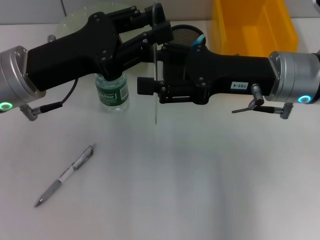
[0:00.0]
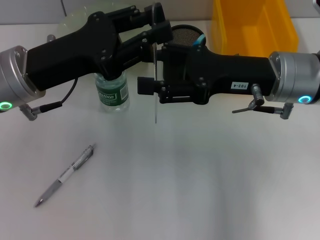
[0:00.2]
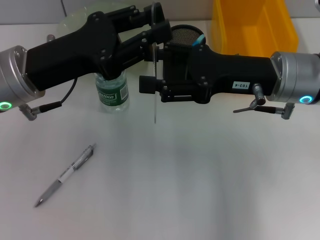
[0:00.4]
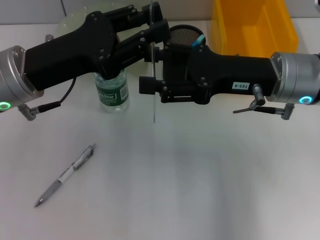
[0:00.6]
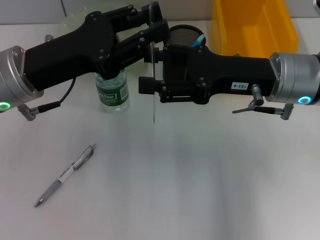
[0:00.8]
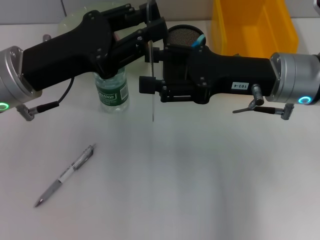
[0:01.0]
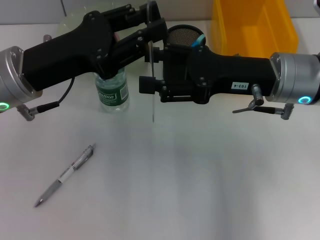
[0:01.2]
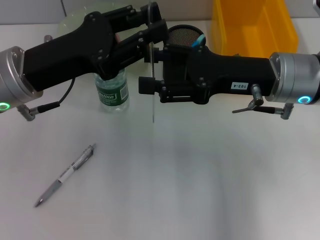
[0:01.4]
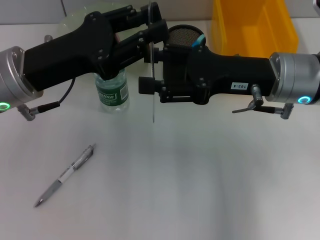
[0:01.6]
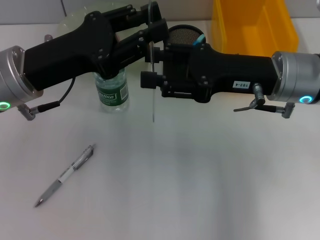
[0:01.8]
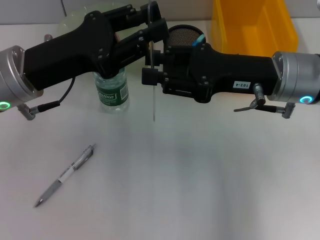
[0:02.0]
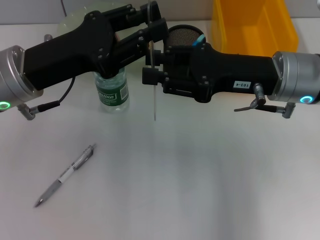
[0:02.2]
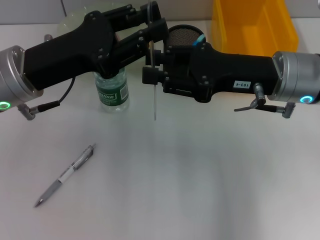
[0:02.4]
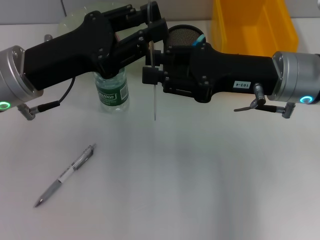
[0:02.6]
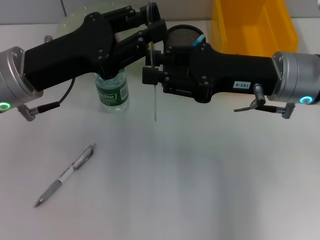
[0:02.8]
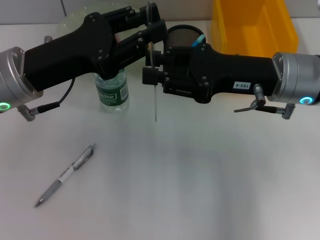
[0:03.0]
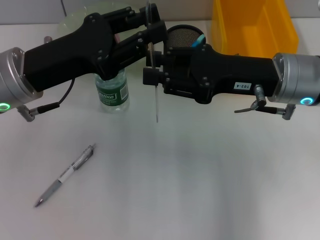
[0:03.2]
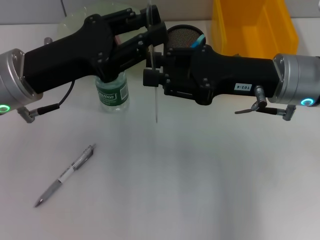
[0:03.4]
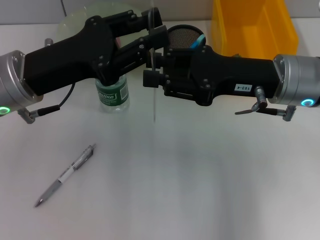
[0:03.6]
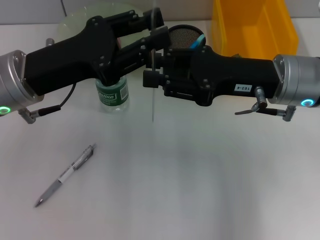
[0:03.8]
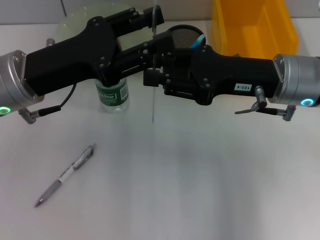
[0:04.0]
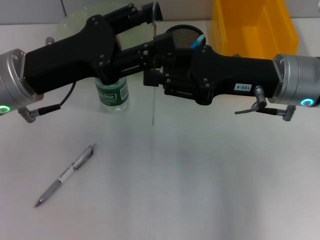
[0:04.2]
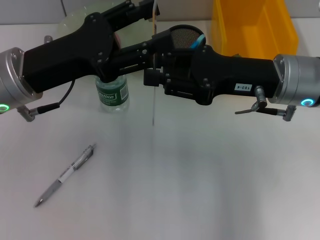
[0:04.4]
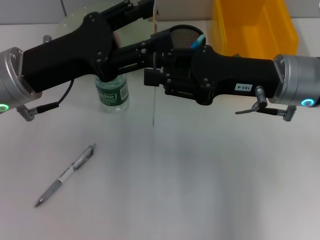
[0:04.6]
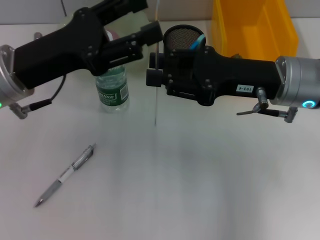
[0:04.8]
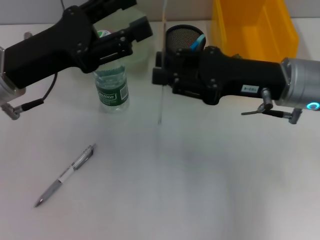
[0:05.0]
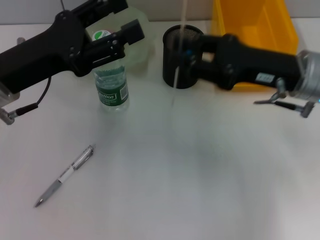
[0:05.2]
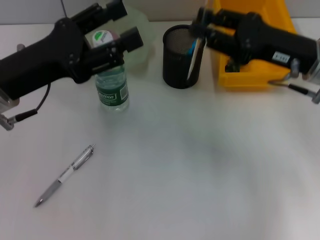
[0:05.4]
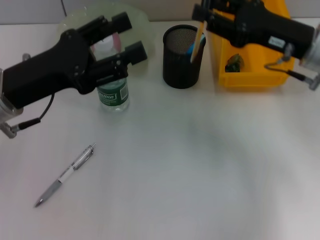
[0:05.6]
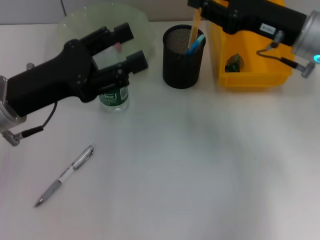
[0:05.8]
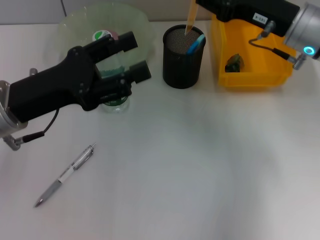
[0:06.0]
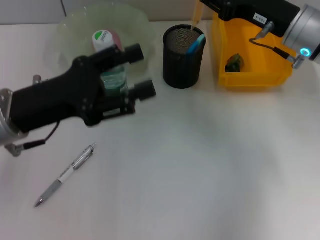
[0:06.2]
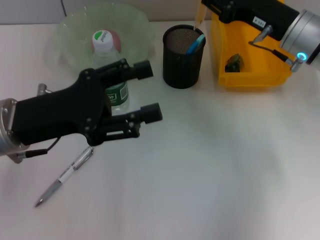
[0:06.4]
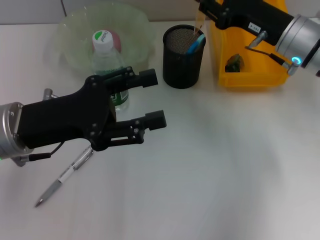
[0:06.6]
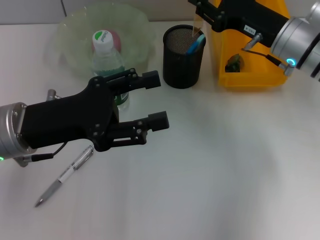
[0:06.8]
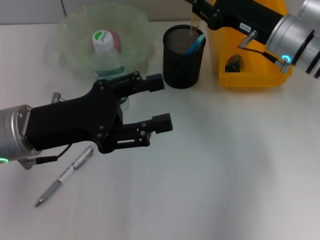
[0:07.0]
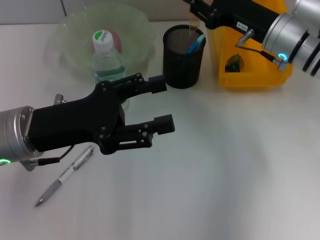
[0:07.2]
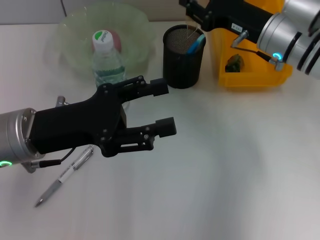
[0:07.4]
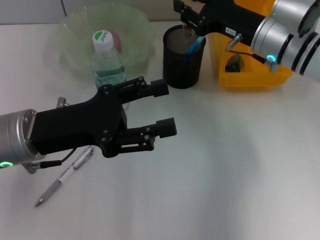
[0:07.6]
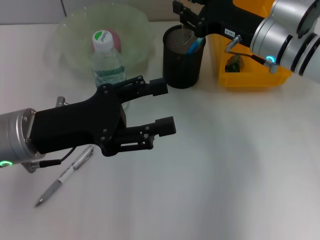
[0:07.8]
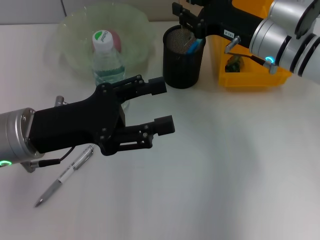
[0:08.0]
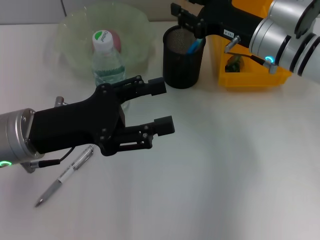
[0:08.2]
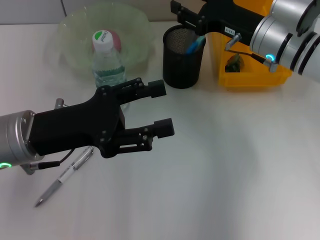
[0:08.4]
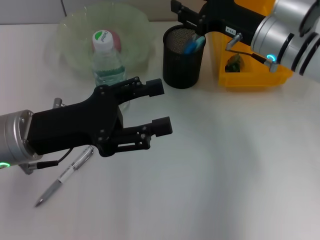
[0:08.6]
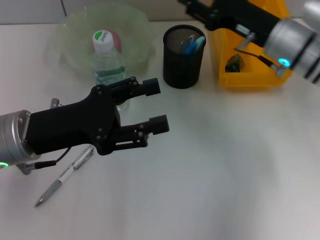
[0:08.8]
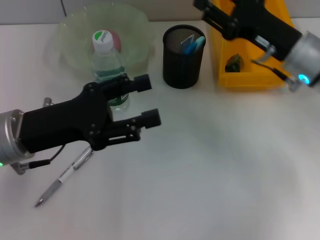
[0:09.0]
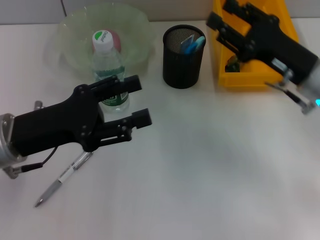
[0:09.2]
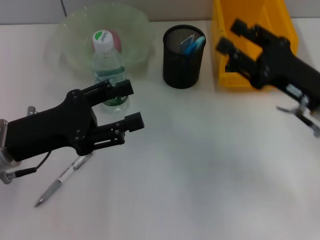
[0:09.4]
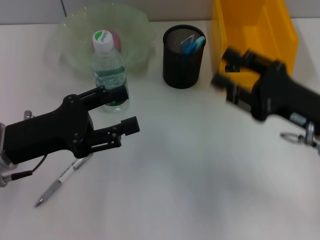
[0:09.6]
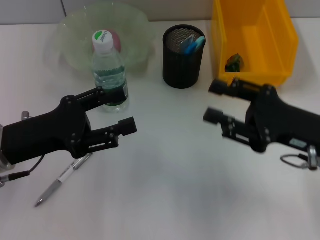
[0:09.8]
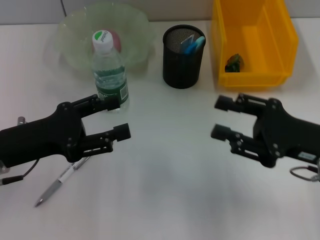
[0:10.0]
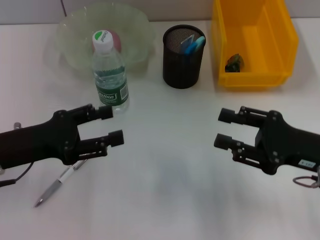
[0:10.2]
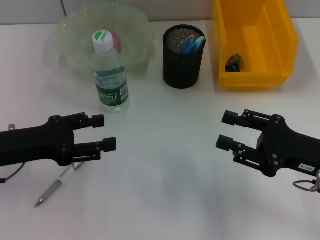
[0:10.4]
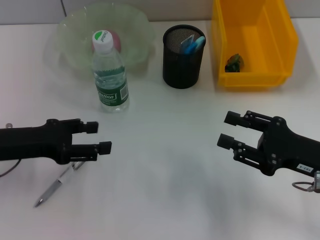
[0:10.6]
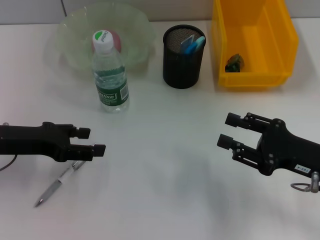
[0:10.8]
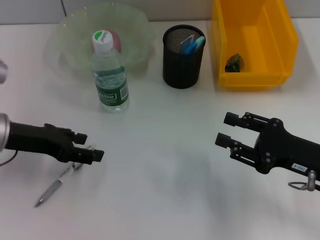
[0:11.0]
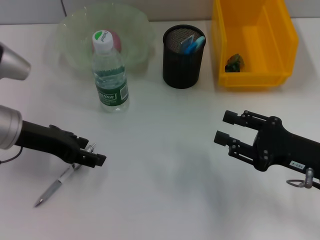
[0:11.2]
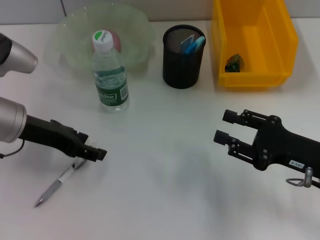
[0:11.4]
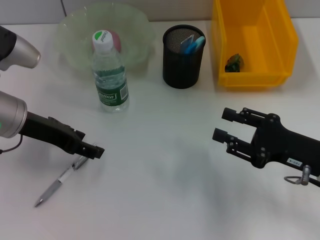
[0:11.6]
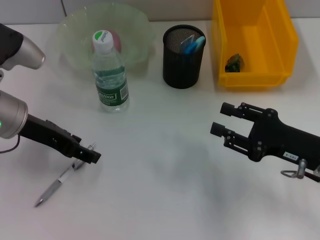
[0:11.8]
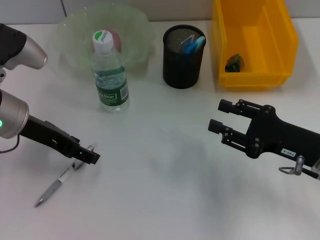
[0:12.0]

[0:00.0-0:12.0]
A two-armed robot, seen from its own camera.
Step, 0:00.0 to 0:04.0: Pass the ruler from the left hand to the right hand.
Step, 0:04.4 to 0:08.4: Place the ruler into the pen holder with the right hand.
0:00.0 to 0:01.6: The two grippers keep their place.
0:01.6 to 0:03.0: The right gripper closes its fingers.
0:03.0 to 0:04.4: The left gripper opens its fingers.
0:04.4 to 0:06.0: The right gripper moves forward, approximately 5 cm.
0:06.0 to 0:07.6: The right gripper shifts by about 5 cm.
0:07.6 to 0:09.0: The right gripper moves roughly 5 cm.
0:09.0 to 0:10.4: The right gripper moves backward, approximately 10 cm. Meanwhile the left gripper travels to the left by some 5 cm.
0:10.4 to 0:12.0: The left gripper shifts approximately 5 cm forward.

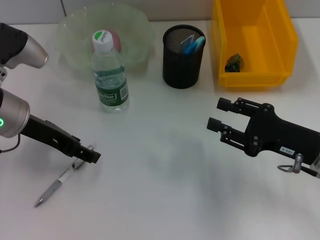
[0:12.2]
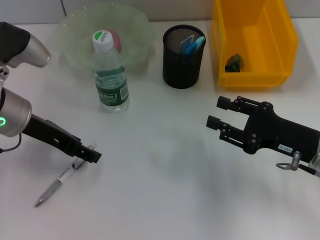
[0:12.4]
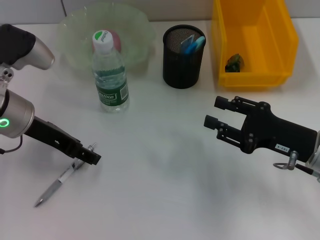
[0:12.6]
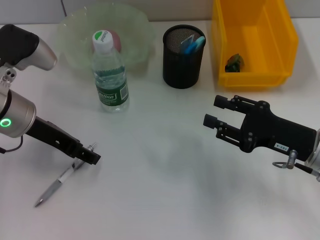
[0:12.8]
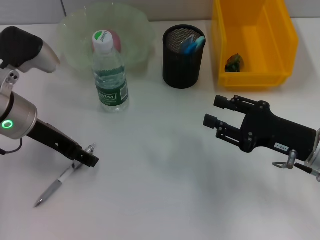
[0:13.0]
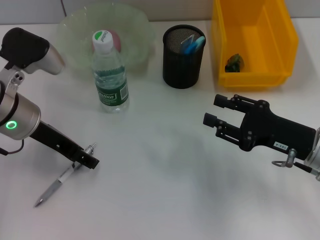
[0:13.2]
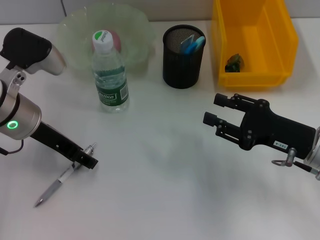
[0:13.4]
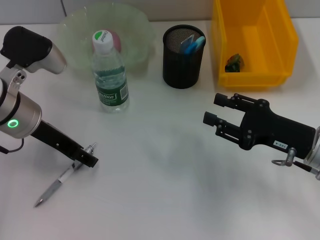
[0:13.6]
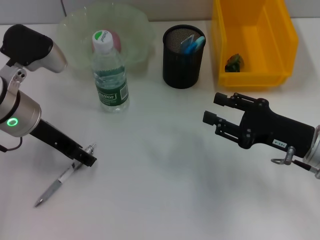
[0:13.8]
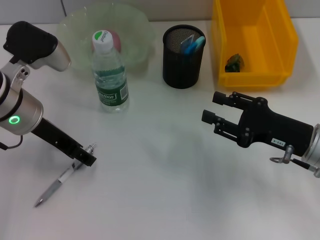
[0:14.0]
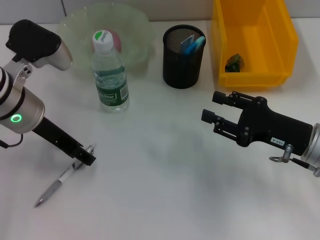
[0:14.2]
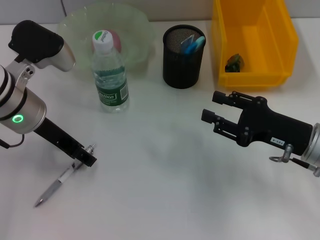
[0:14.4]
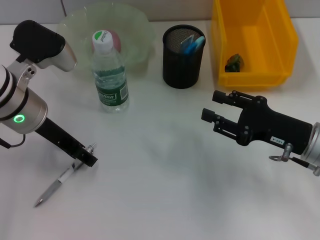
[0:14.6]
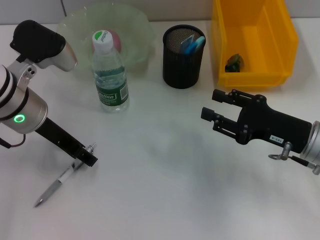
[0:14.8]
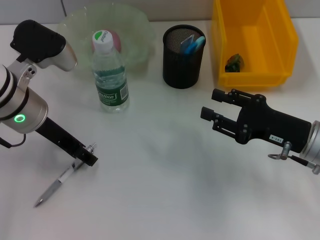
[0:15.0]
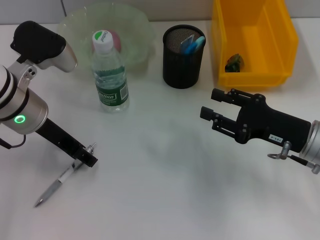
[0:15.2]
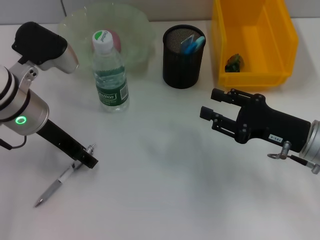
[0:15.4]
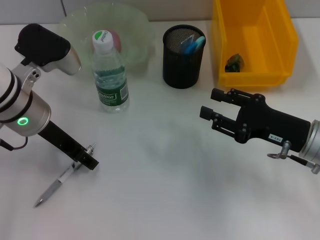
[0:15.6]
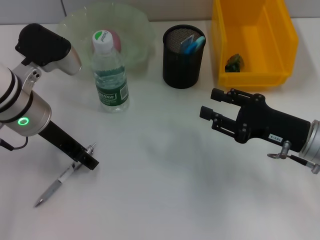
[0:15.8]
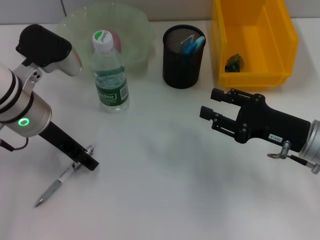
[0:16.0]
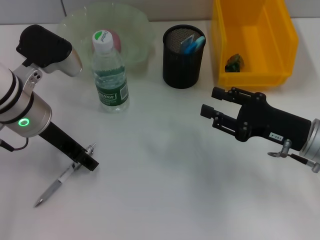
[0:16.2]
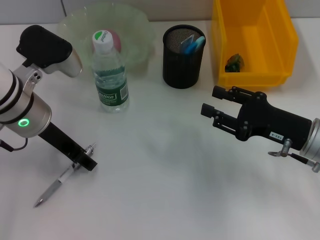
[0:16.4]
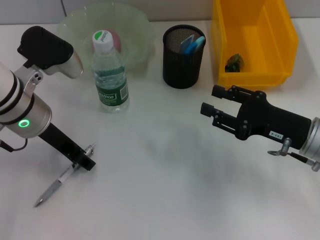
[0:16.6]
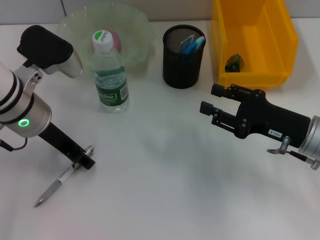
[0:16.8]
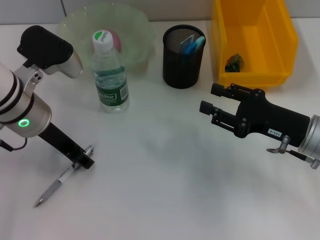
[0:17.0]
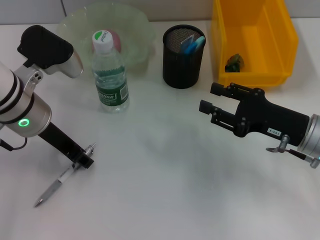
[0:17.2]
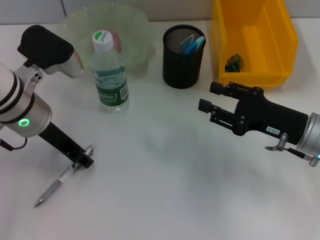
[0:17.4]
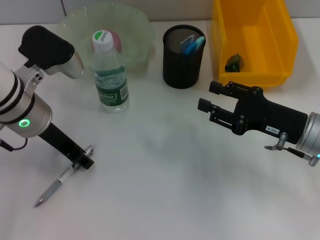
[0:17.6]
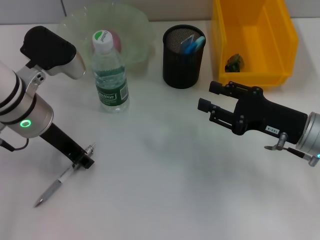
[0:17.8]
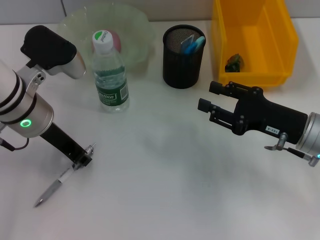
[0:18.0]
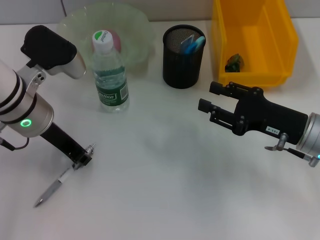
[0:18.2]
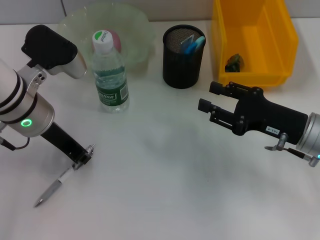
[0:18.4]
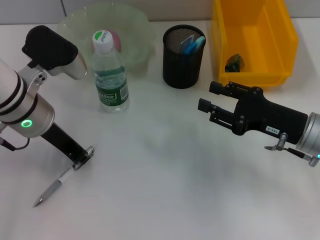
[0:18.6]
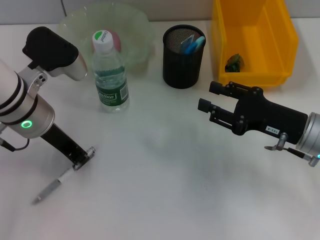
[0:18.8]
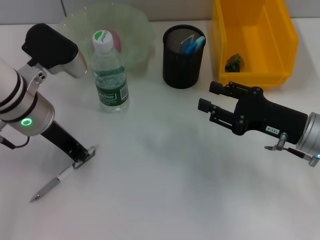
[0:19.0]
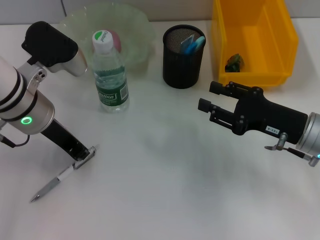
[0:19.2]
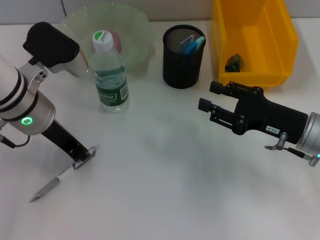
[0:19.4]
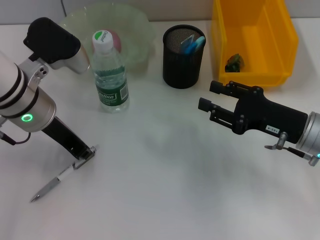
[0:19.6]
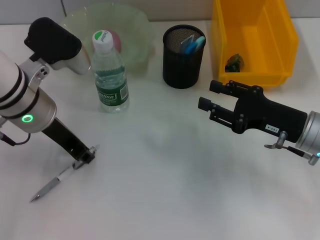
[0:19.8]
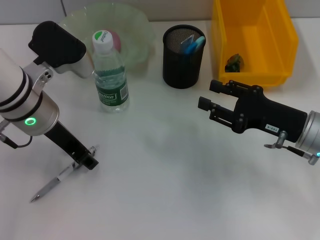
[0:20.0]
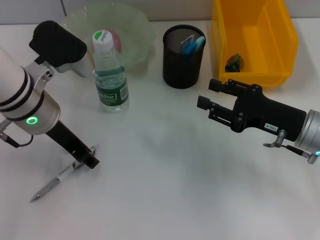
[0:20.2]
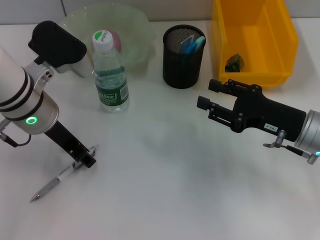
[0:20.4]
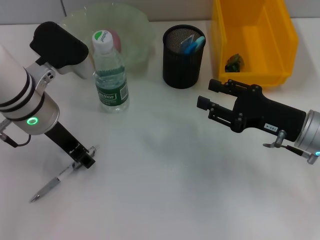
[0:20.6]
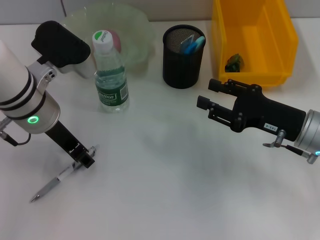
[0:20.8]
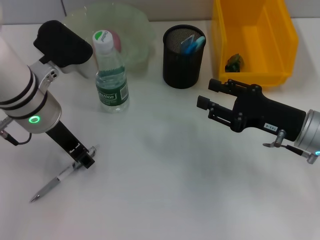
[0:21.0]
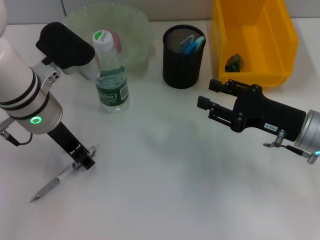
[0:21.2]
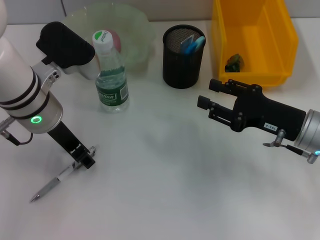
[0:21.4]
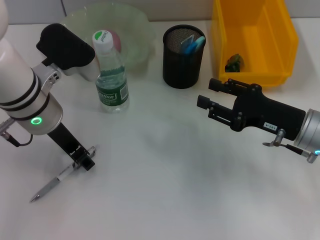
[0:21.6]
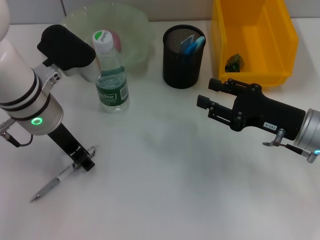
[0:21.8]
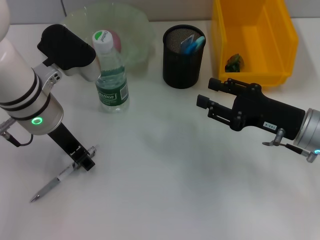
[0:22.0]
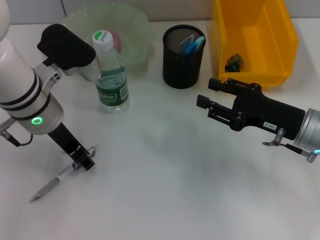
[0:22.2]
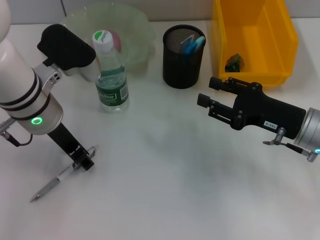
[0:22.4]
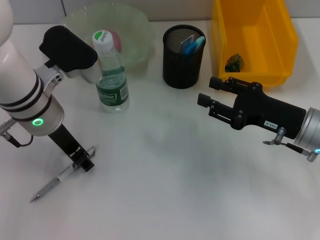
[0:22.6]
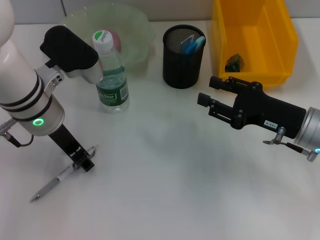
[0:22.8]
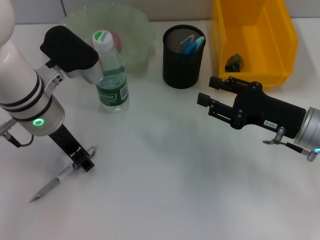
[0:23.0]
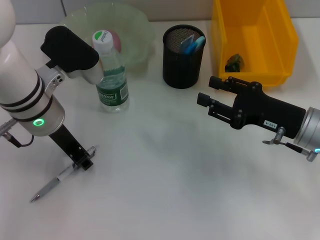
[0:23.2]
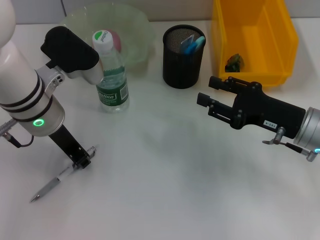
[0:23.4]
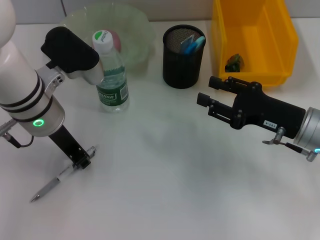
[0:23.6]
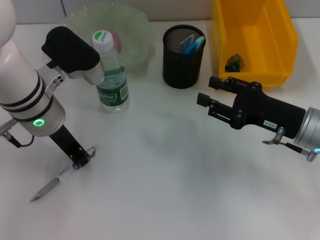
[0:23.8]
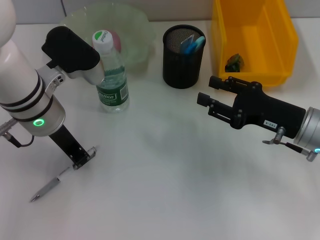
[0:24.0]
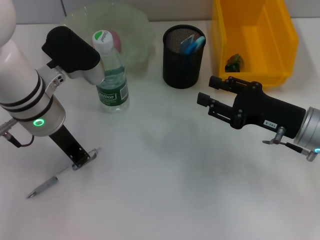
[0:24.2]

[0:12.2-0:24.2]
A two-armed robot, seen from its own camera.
0:12.2 to 0:15.2: The grippers stay close to where they were, moving slightly.
0:15.2 to 0:16.6: Both grippers stay about where they are.
0:16.6 to 0:18.2: The left gripper closes up.
0:18.2 to 0:19.8: Both grippers stay put.
0:19.8 to 0:21.2: The left gripper opens up.
0:21.2 to 0:22.6: Both grippers stay put.
0:22.6 to 0:24.2: The left gripper closes up.
